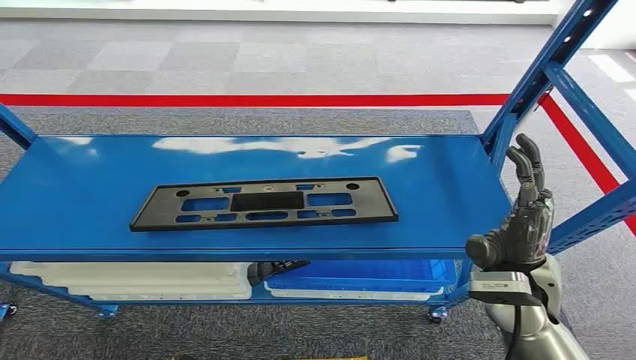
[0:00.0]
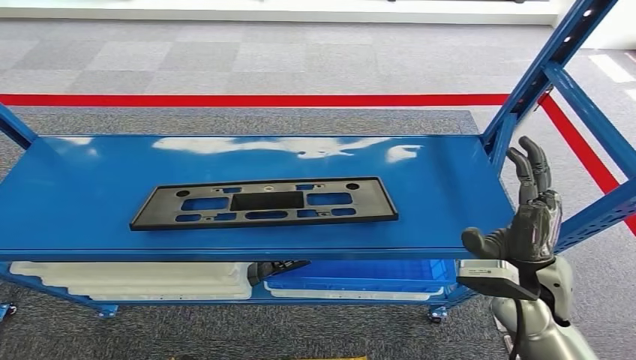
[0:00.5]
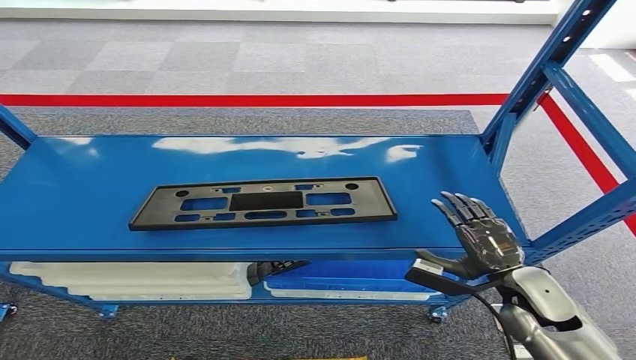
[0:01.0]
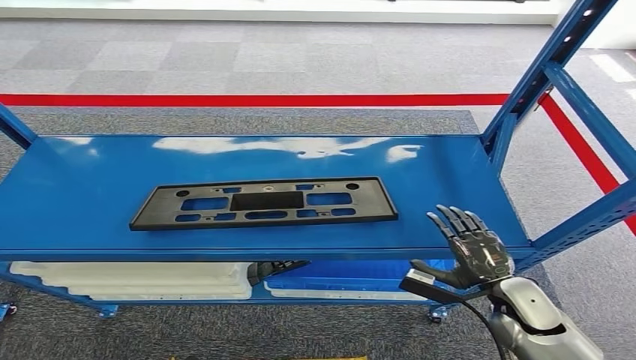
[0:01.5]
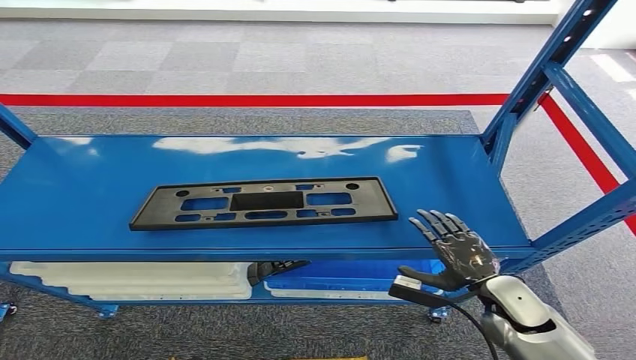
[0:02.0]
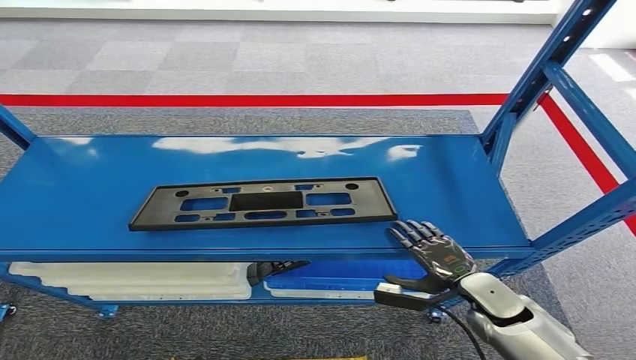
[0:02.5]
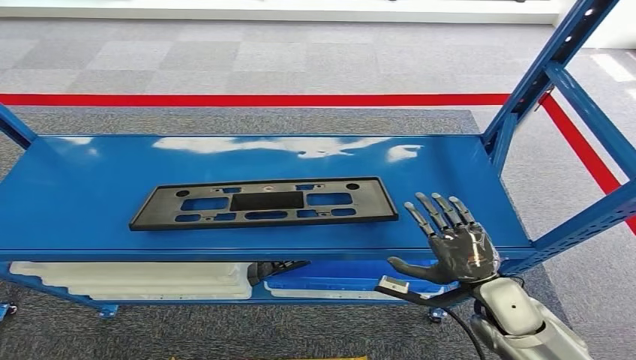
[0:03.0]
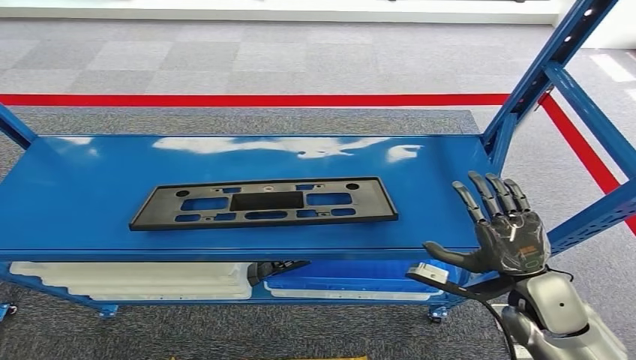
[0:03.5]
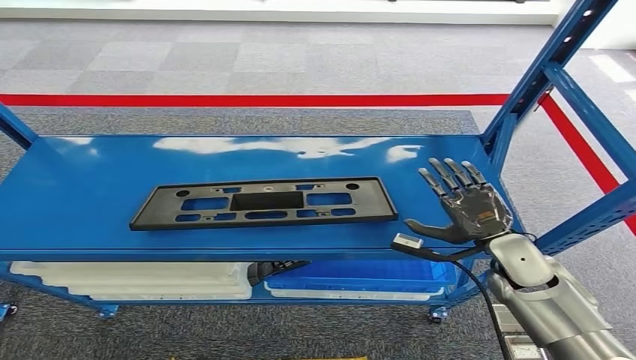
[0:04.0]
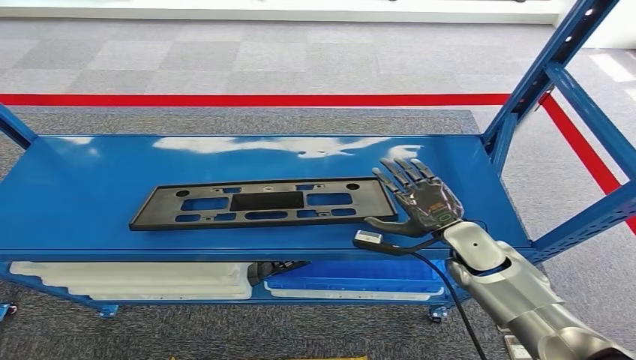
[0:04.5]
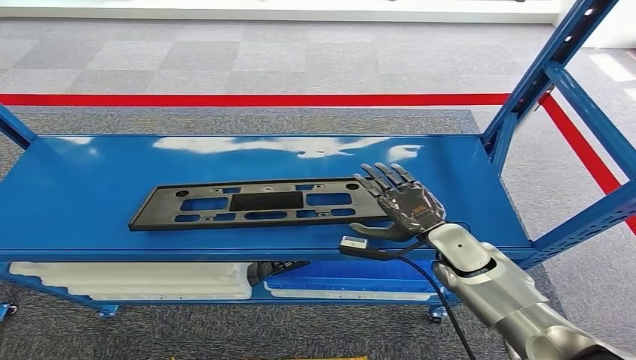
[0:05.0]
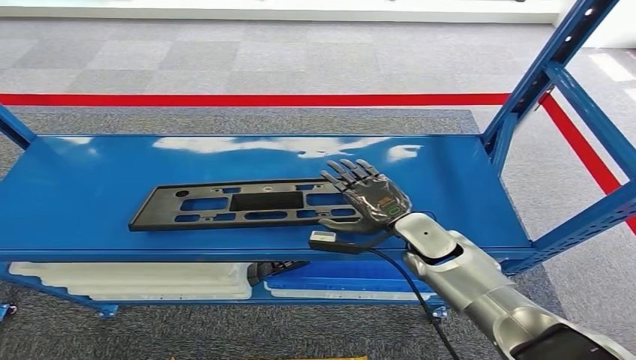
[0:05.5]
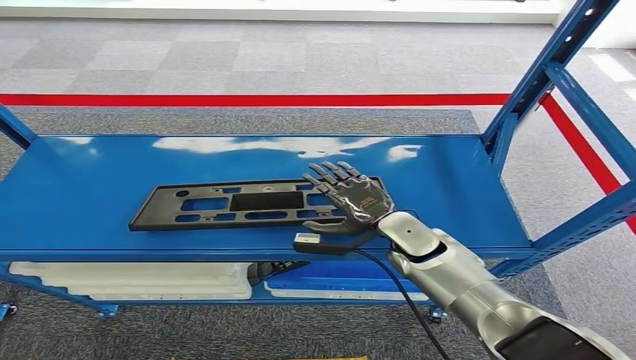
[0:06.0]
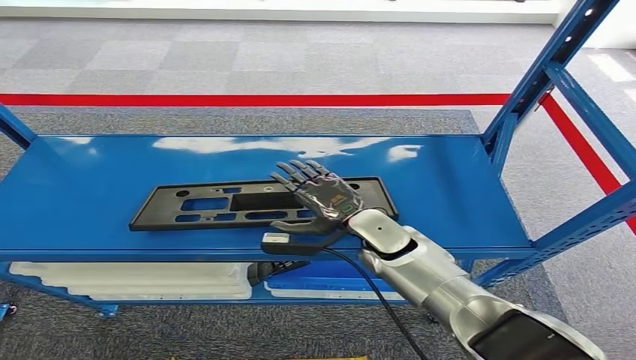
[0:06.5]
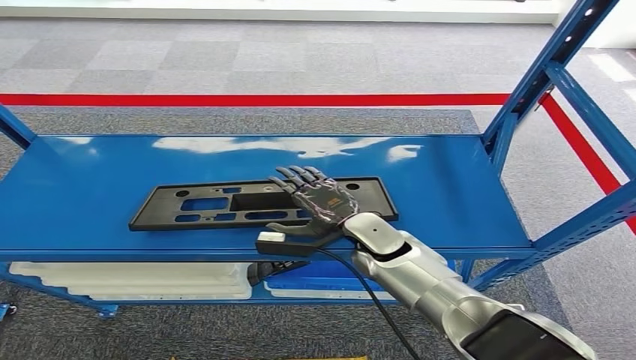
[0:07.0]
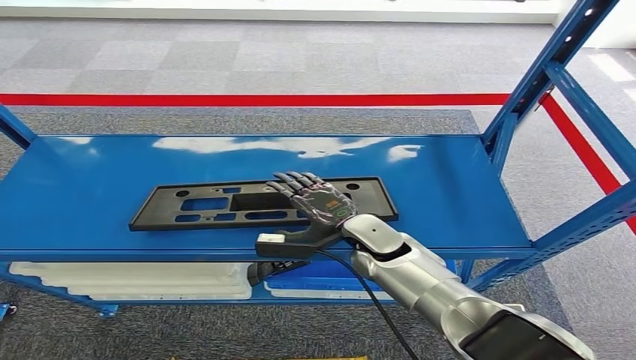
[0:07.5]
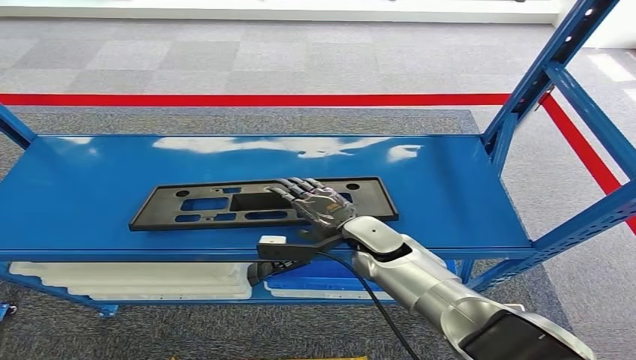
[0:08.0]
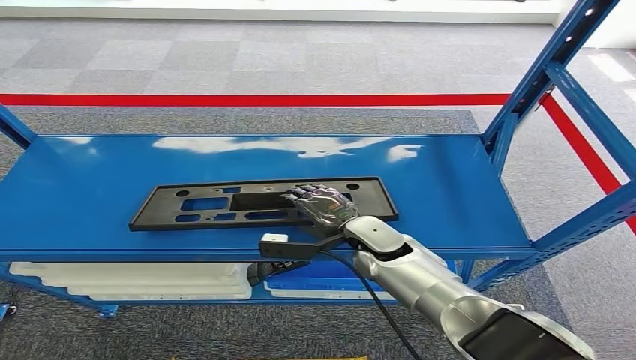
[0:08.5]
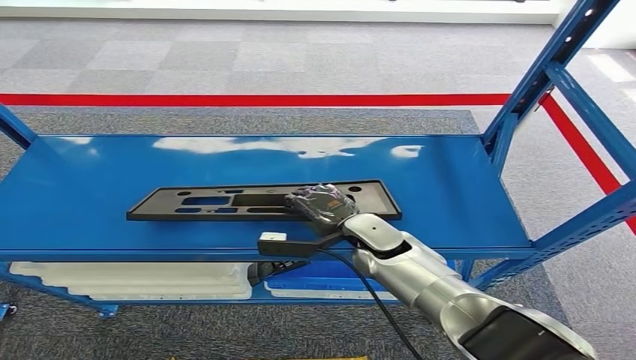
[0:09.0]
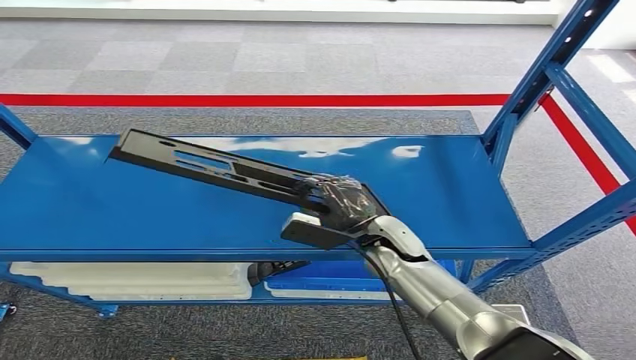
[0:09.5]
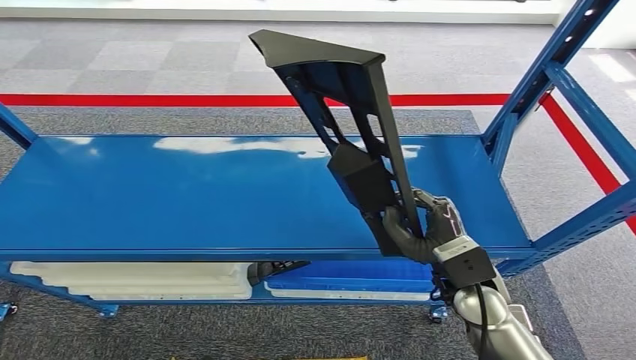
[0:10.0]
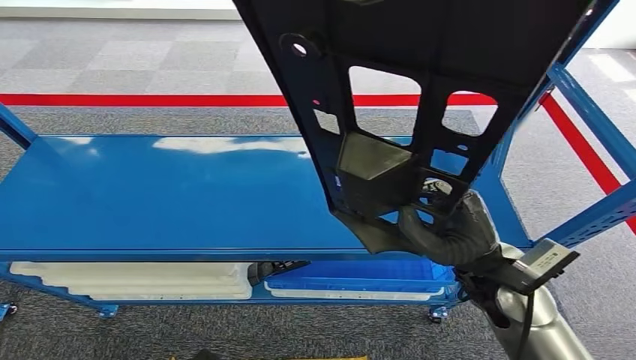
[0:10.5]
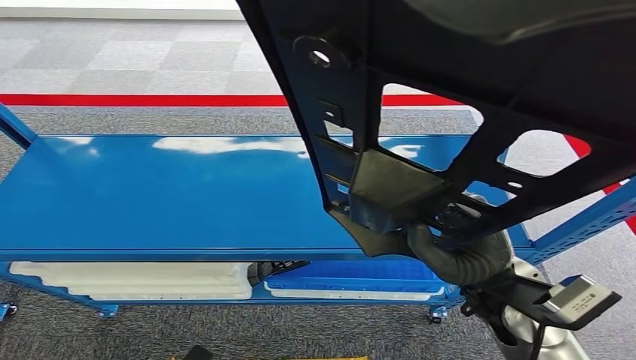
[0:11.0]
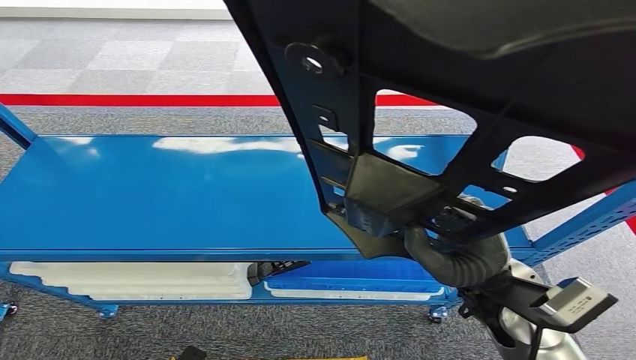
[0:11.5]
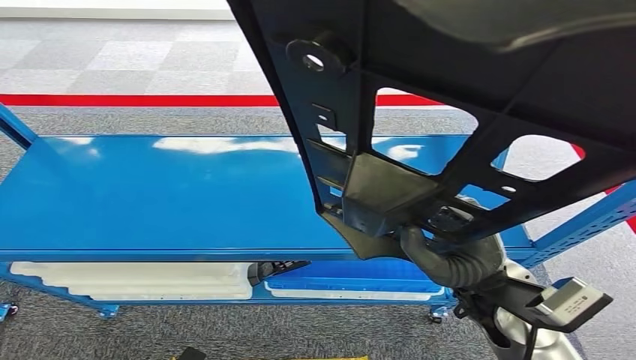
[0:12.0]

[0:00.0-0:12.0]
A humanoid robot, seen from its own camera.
Step, 0:00.0 to 0:10.5: Pick up the large material from the shelf.
0:02.0 to 0:04.0: The right hand travels upward and forward by roughly 10 cm.
0:04.0 to 0:06.0: The right hand moves to the left, approximately 15 cm.
0:06.0 to 0:08.0: The right hand heads to the left, covering approximately 5 cm.
0:08.0 to 0:10.0: The right hand goes approximately 15 cm backward and to the right.

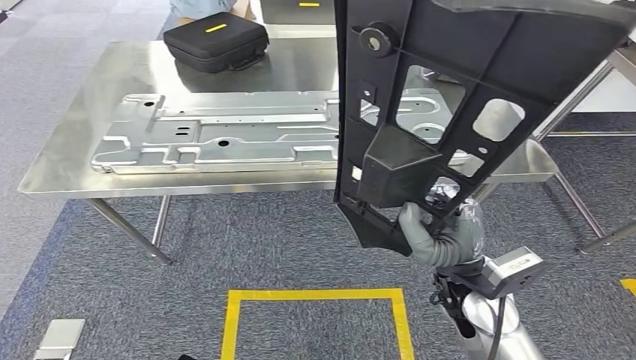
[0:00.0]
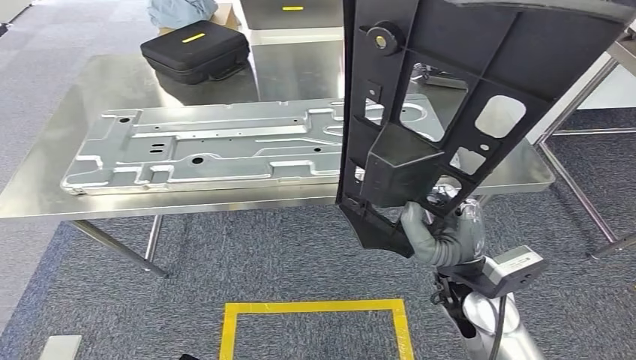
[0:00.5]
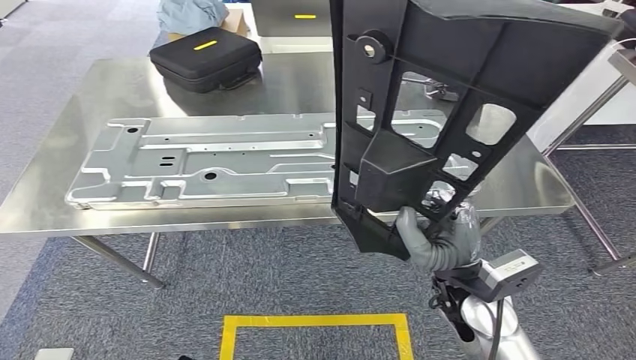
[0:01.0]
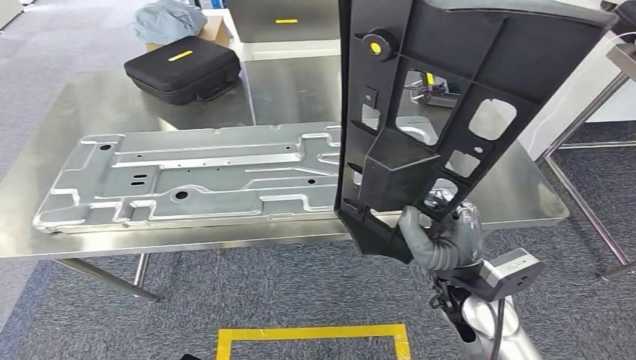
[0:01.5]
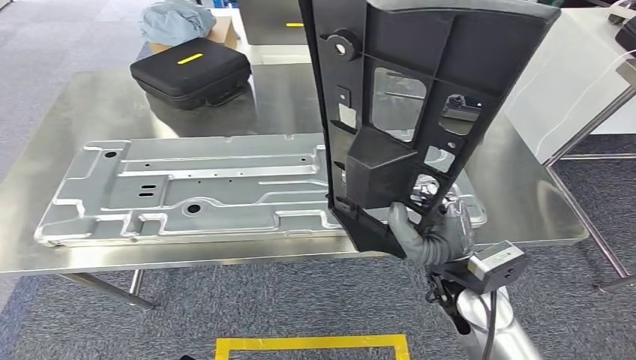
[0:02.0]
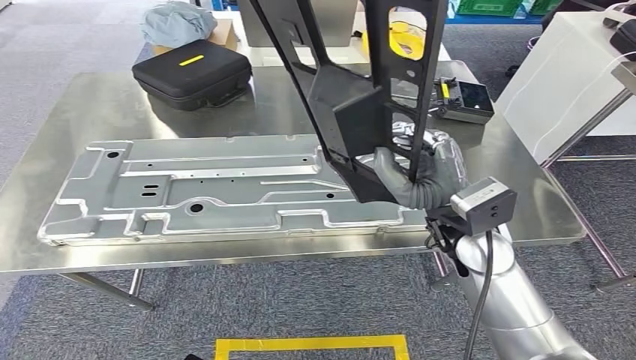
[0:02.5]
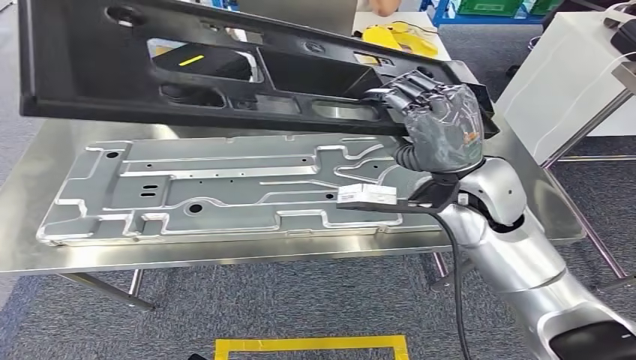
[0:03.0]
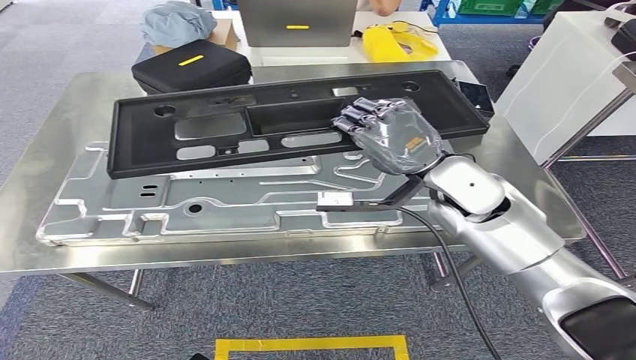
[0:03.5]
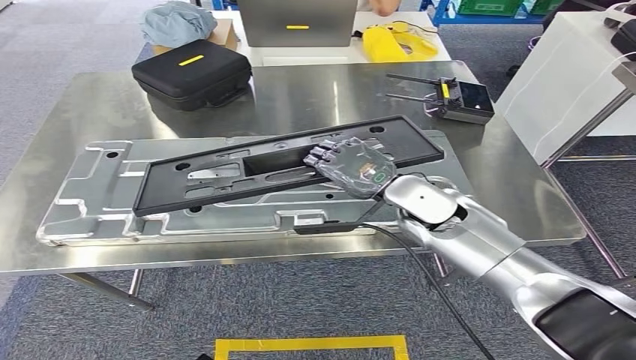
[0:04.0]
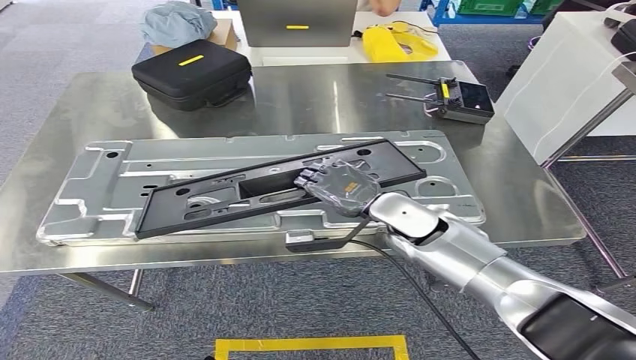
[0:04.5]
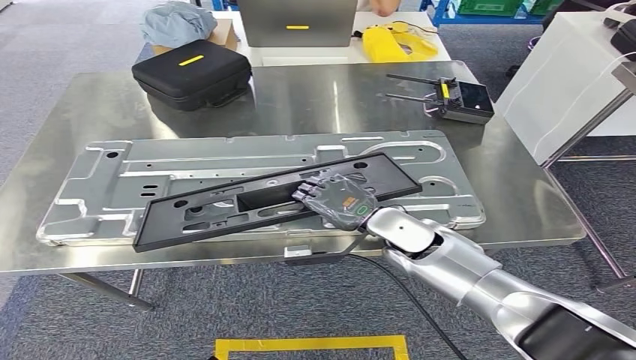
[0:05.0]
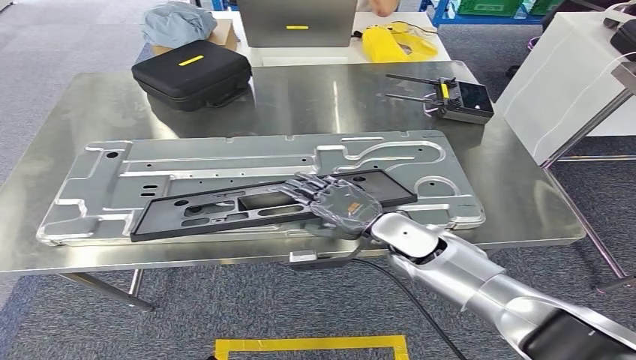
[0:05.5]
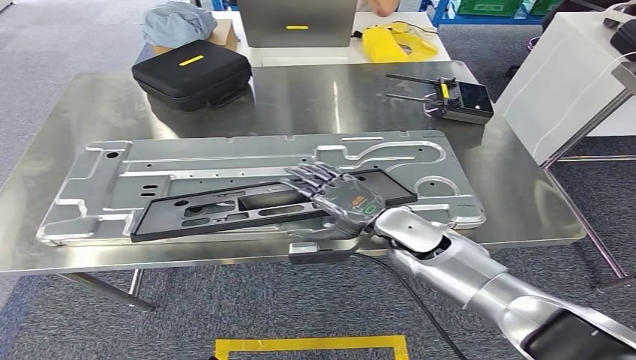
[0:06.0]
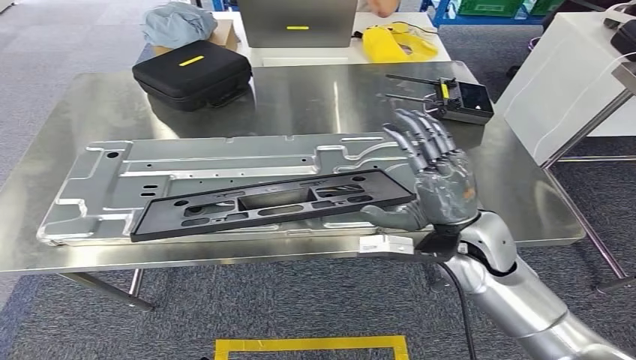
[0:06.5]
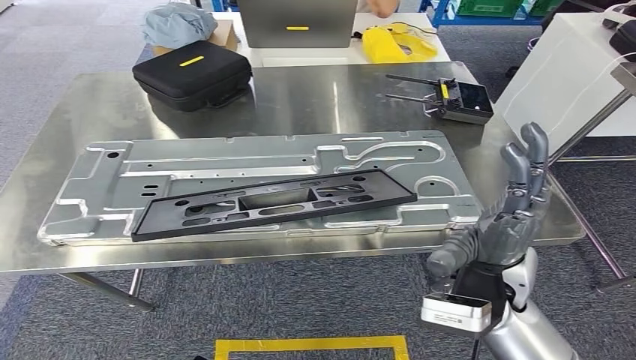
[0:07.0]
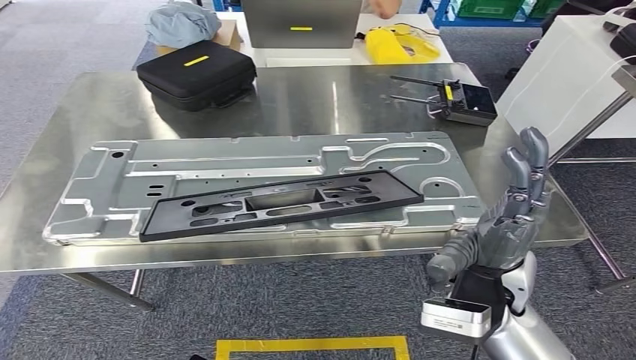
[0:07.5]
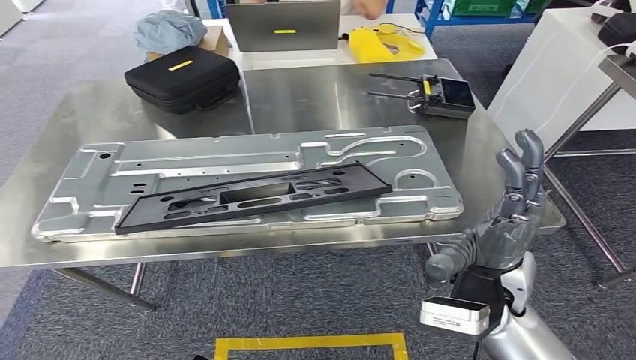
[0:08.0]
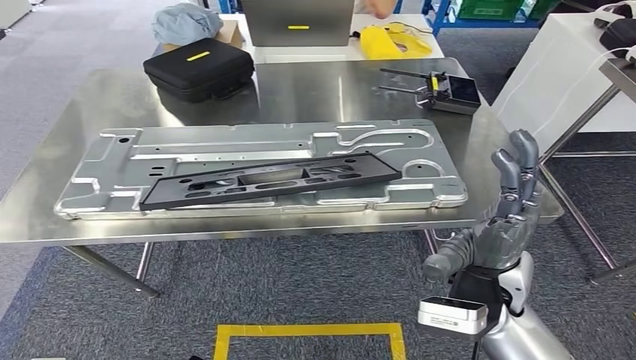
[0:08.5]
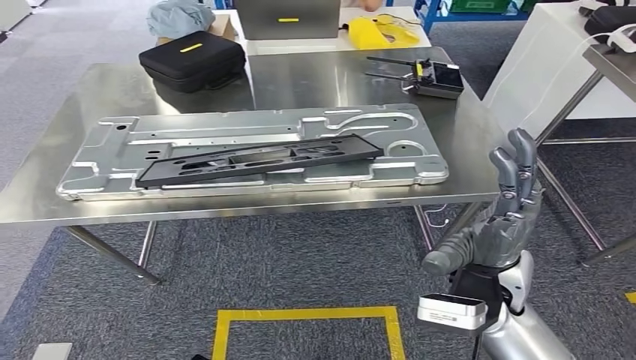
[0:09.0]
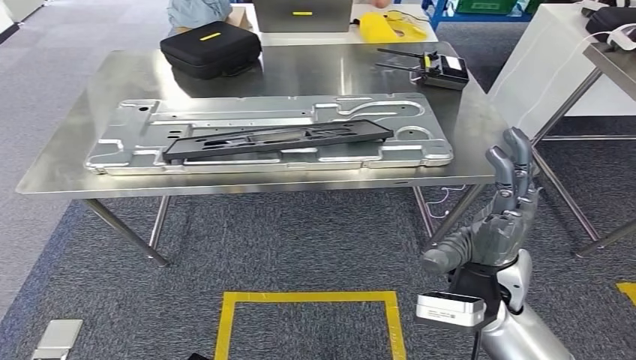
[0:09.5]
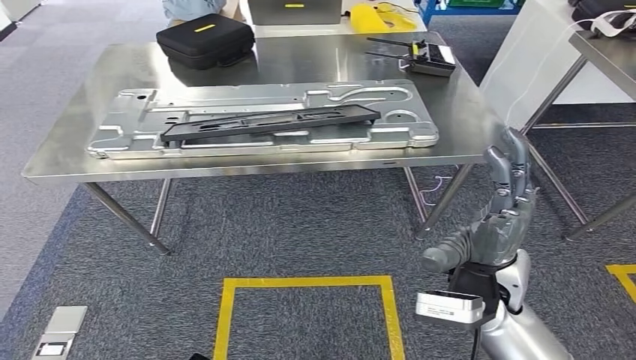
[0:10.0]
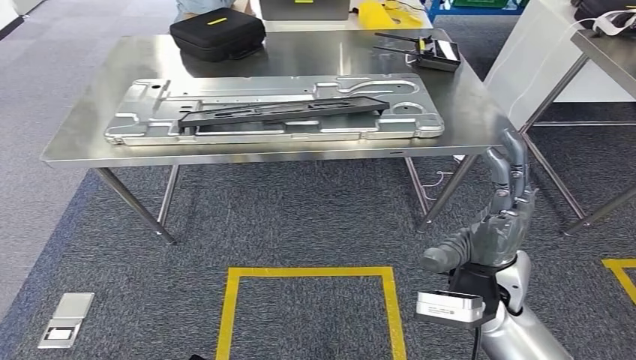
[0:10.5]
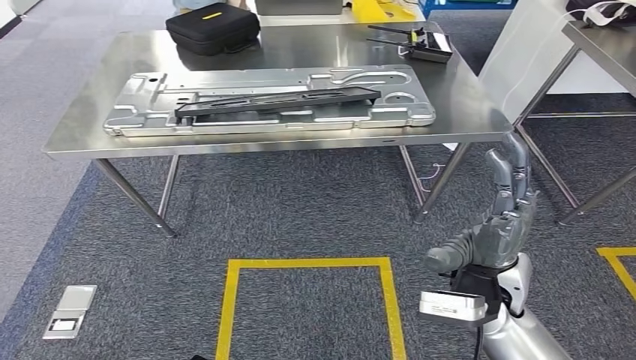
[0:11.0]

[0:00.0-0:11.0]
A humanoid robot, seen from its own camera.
Step, 0:02.0 to 0:07.5: Insert the large material into the corresponding slot on the workbench.
